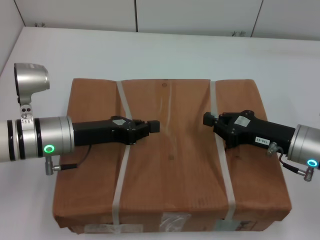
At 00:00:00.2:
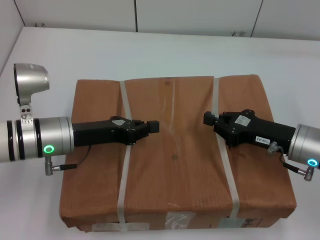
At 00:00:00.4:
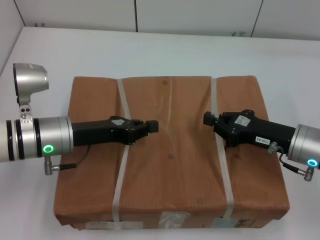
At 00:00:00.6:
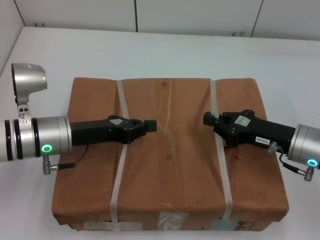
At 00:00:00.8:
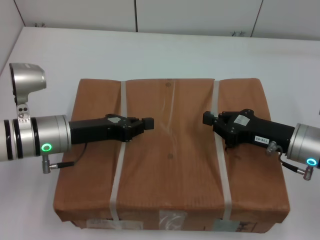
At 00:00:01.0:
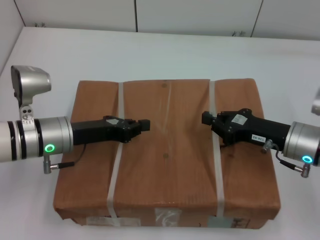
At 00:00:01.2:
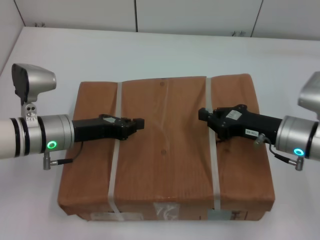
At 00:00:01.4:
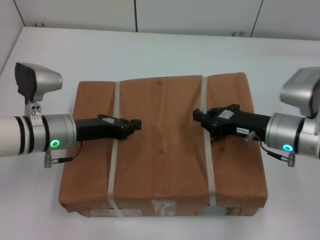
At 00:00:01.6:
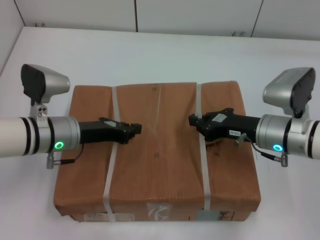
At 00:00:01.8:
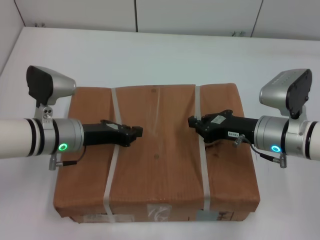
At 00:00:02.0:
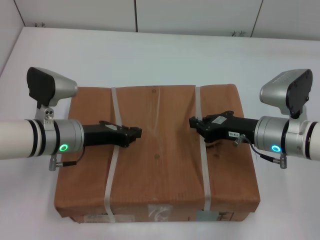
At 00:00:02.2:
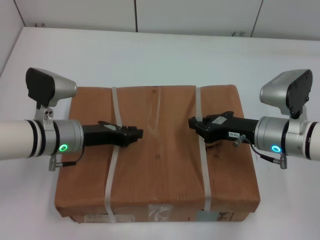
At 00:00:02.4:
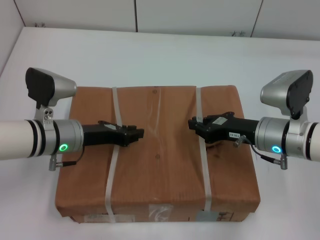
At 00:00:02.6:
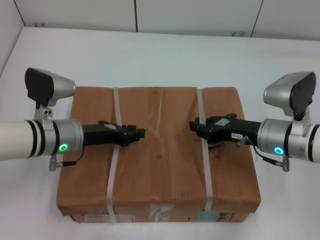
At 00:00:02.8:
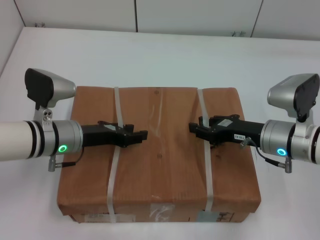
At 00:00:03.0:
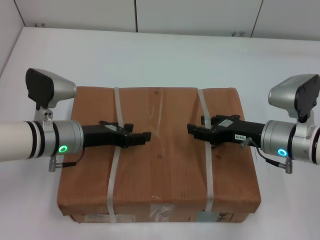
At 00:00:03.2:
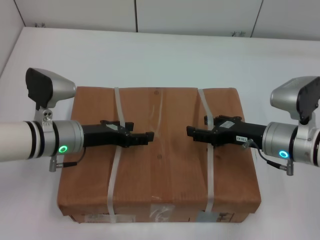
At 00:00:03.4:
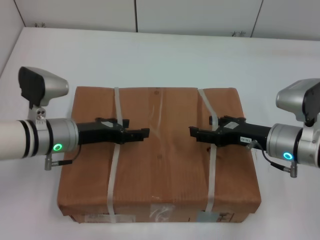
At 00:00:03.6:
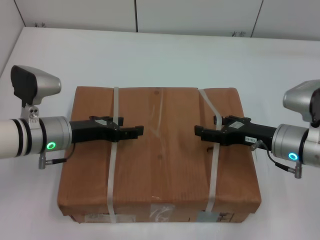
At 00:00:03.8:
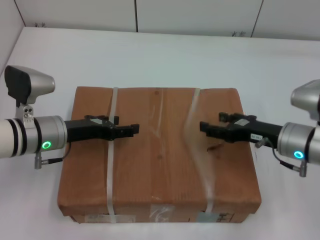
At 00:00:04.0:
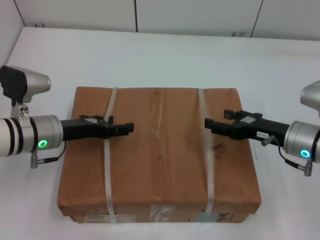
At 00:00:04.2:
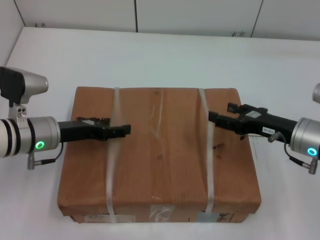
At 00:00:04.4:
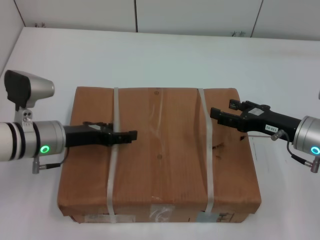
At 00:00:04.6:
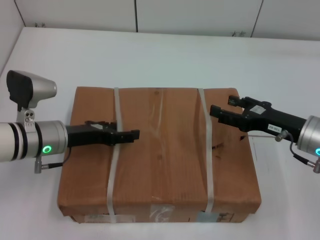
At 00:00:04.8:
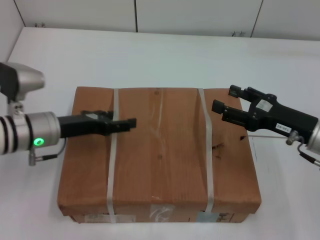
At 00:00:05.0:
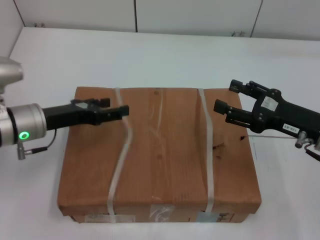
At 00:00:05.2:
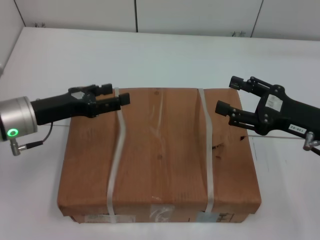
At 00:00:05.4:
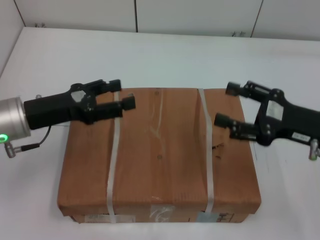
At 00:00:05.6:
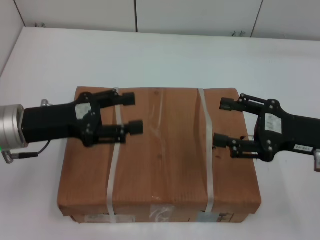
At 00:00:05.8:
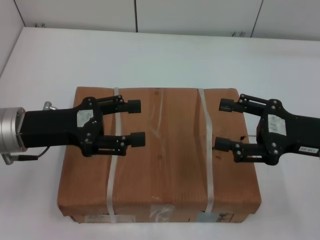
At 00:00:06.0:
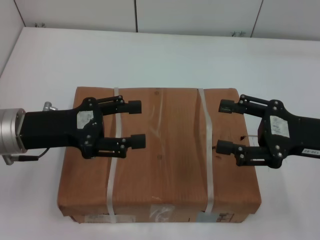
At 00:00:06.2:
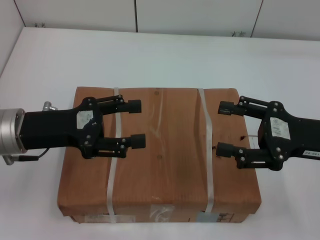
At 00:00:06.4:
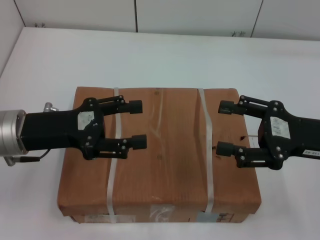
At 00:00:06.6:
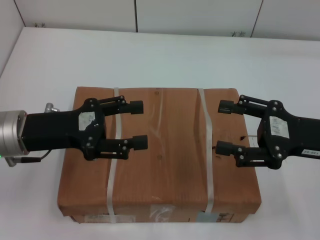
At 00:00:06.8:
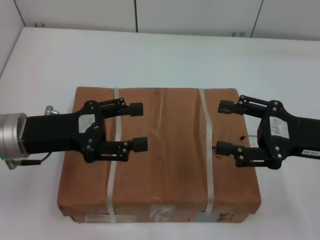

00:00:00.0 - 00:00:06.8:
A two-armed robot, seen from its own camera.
Task of the whole recording: place the box on the table with both arms.
Step, 00:00:00.0 - 00:00:02.2: Place the box on the table with left gripper.
Step, 00:00:00.0 - 00:00:02.2: Place the box on the table with right gripper.
Step, 00:00:02.4 - 00:00:04.2: Loosen the box on the table with left gripper.
Step, 00:00:02.4 - 00:00:04.2: Loosen the box on the table with right gripper.
00:00:01.4 - 00:00:02.8: The left gripper opens up.
00:00:02.8 - 00:00:04.0: The left gripper opens its fingers; the right gripper opens up.
00:00:04.0 - 00:00:05.4: Both grippers travel together upward, some 5 cm.
